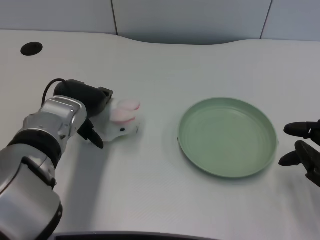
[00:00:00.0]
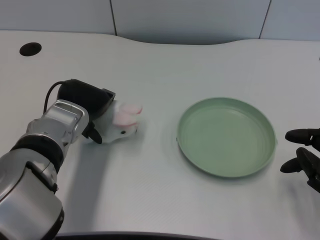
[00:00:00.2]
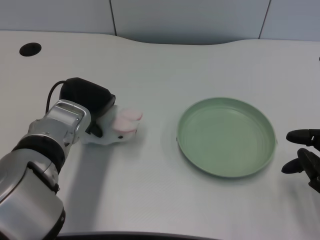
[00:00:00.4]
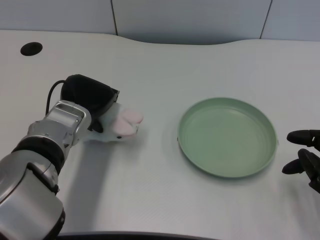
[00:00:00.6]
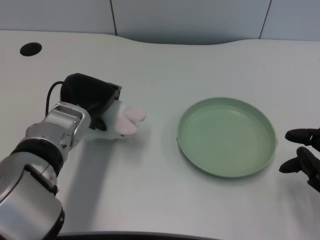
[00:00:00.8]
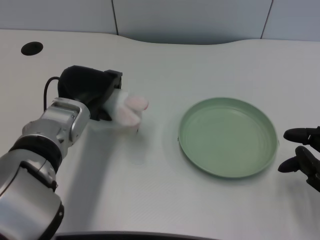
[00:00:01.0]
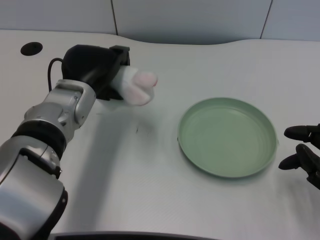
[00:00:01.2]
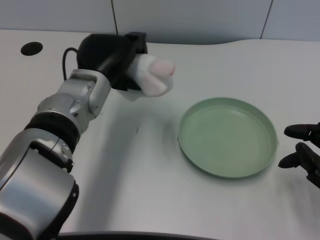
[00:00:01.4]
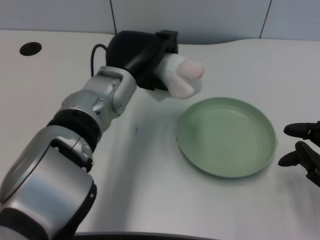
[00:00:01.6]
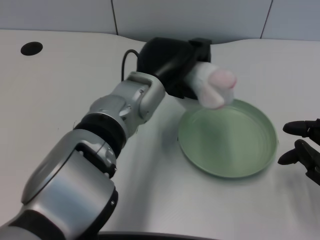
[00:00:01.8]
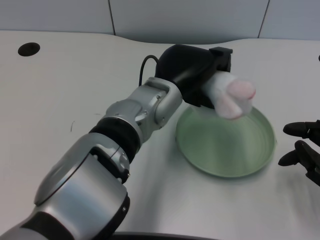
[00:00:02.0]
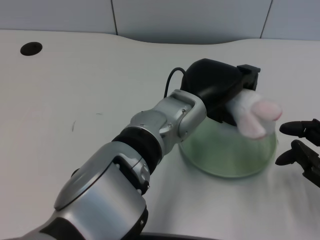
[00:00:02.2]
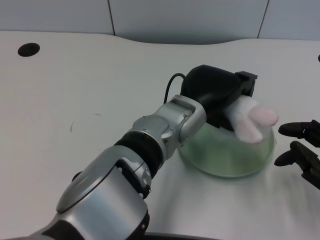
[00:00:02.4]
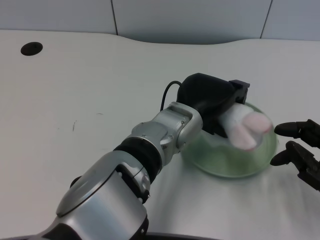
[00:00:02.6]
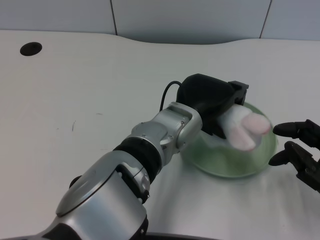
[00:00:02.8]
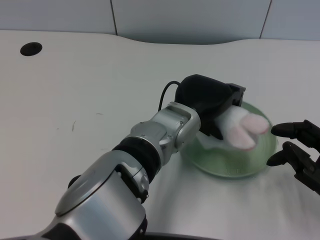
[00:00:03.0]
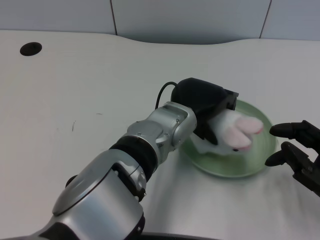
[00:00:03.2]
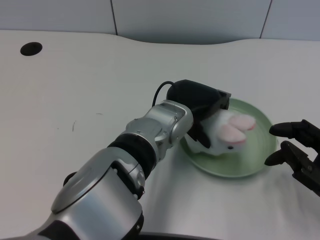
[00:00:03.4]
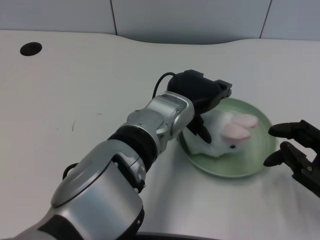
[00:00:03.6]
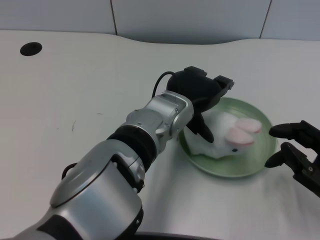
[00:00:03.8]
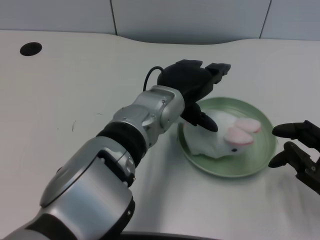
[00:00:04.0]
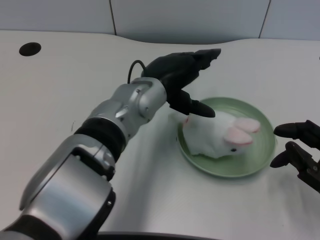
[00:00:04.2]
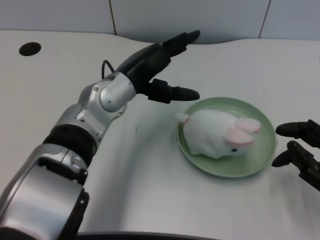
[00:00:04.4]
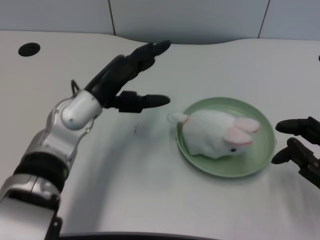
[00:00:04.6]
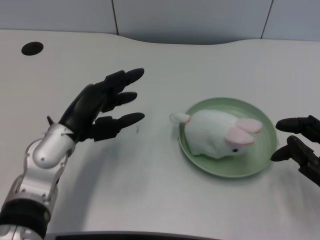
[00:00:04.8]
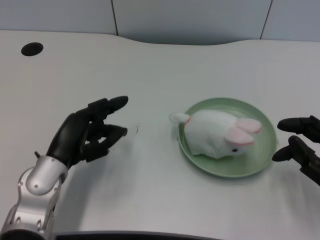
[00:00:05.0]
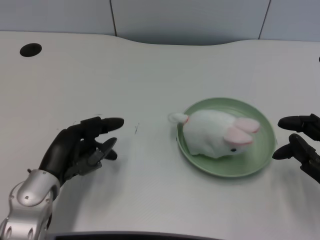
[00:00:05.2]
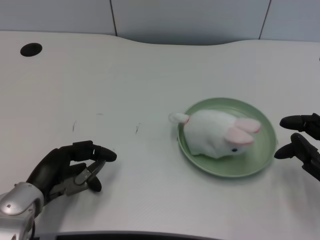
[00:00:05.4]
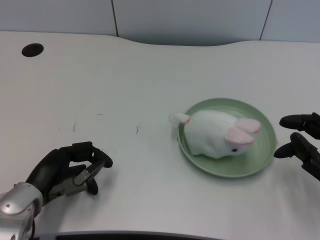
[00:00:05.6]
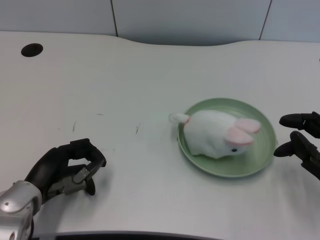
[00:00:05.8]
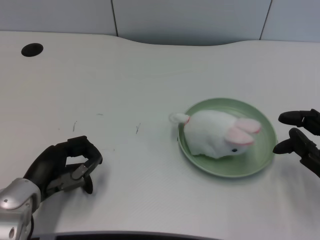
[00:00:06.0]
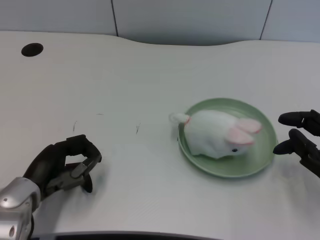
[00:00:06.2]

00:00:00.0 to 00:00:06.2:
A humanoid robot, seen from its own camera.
Task of the whole recording: pick up the rabbit doll from the table and place it on the plate.
Step, 00:00:01.2 to 00:00:03.6: Place the rabbit doll into the plate with the left gripper.
00:00:00.0 to 00:00:01.6: The left hand shifts roughly 10 cm to the right.
00:00:01.6 to 00:00:03.2: The left hand is displaced to the right by some 10 cm.
00:00:03.2 to 00:00:04.6: The left hand moves to the left, approximately 15 cm.
00:00:04.6 to 00:00:06.2: The left hand shifts approximately 15 cm to the left, downward and backward.

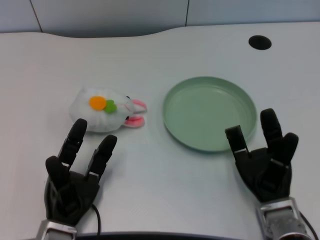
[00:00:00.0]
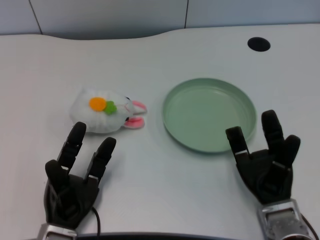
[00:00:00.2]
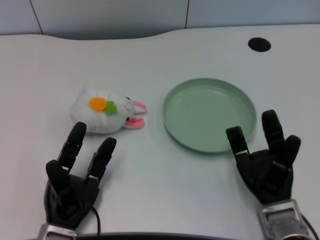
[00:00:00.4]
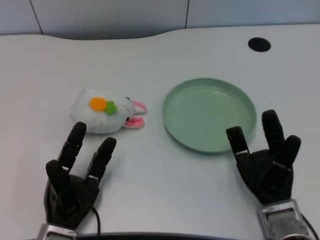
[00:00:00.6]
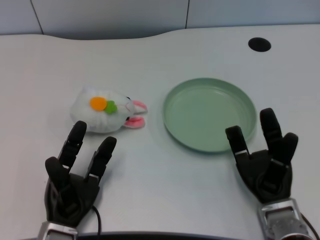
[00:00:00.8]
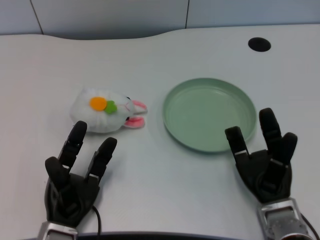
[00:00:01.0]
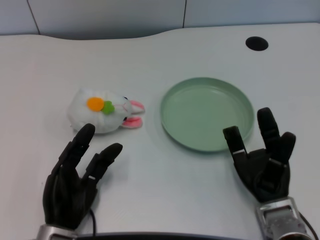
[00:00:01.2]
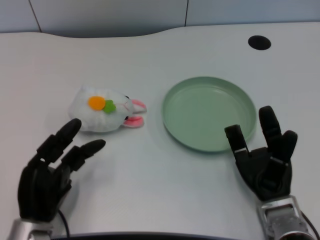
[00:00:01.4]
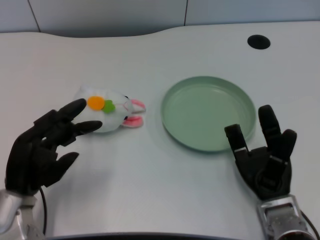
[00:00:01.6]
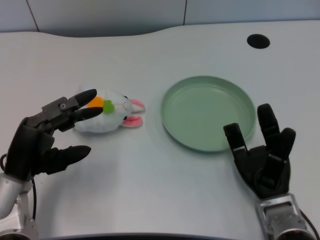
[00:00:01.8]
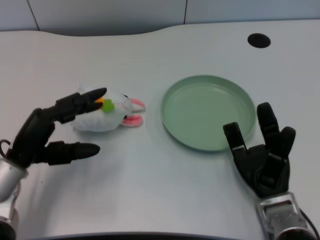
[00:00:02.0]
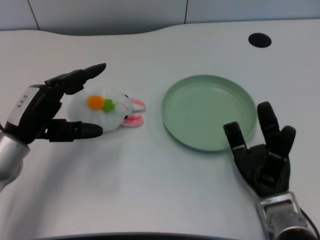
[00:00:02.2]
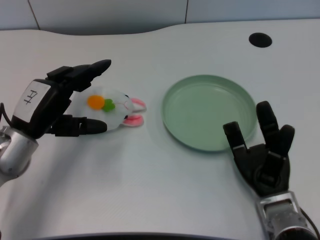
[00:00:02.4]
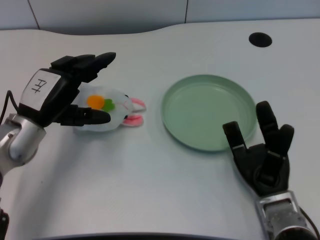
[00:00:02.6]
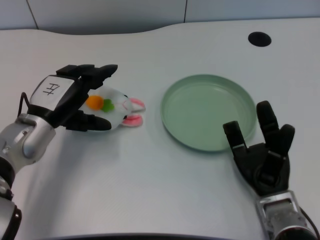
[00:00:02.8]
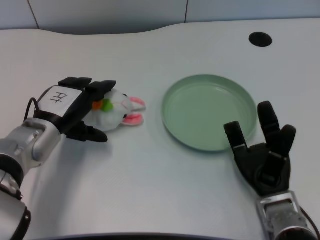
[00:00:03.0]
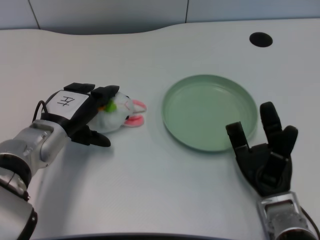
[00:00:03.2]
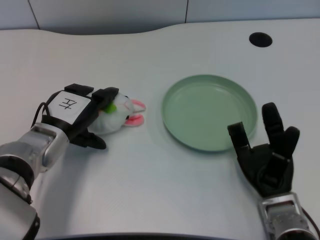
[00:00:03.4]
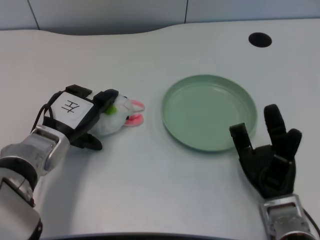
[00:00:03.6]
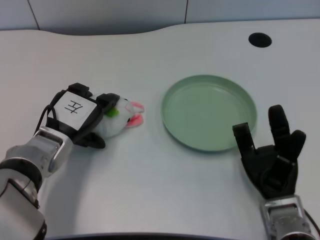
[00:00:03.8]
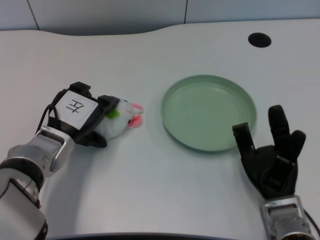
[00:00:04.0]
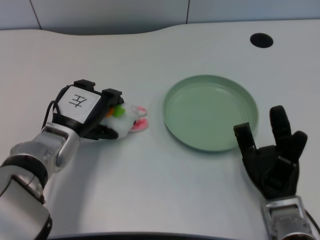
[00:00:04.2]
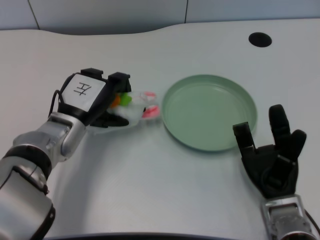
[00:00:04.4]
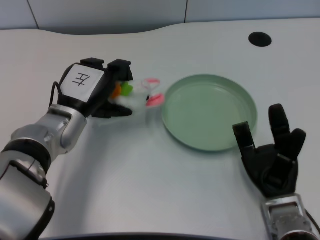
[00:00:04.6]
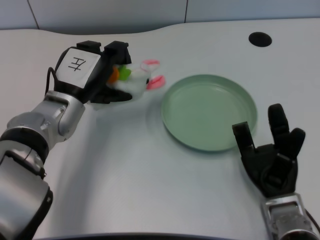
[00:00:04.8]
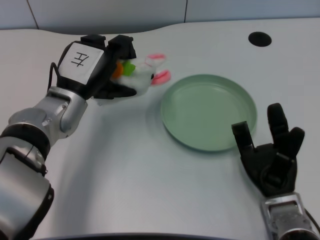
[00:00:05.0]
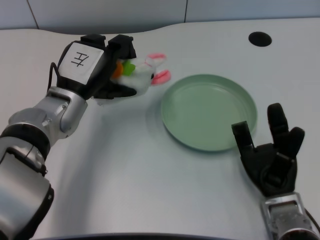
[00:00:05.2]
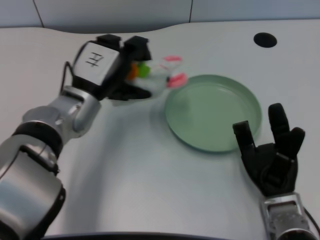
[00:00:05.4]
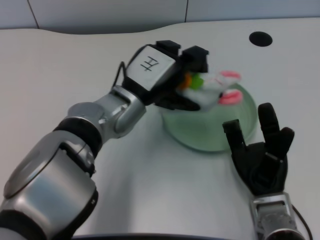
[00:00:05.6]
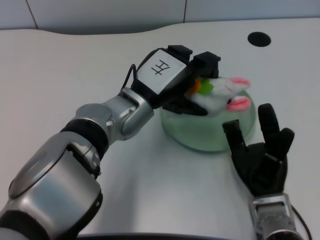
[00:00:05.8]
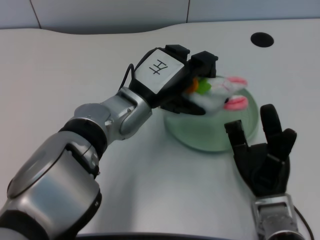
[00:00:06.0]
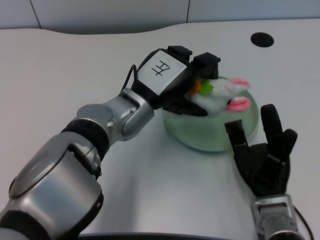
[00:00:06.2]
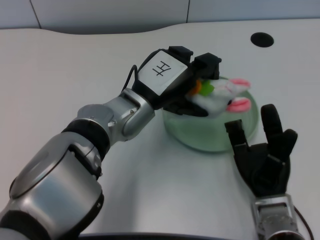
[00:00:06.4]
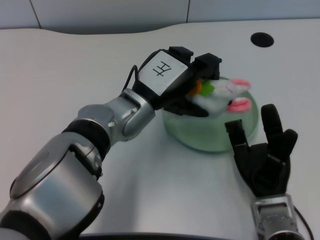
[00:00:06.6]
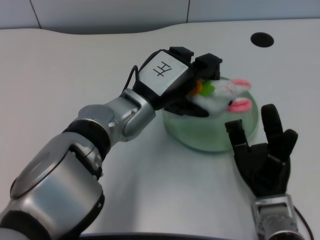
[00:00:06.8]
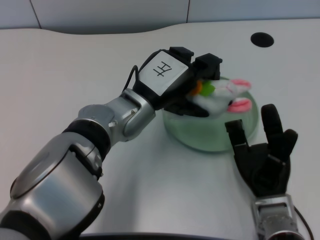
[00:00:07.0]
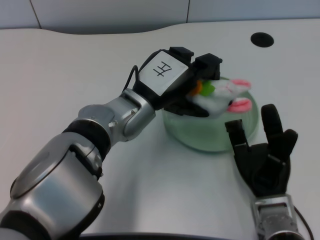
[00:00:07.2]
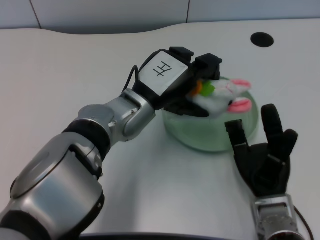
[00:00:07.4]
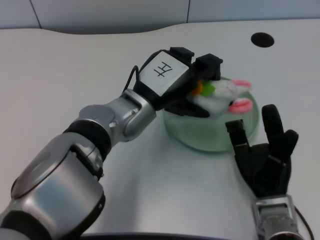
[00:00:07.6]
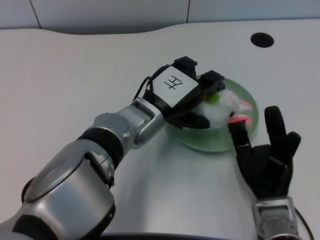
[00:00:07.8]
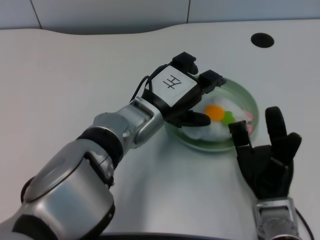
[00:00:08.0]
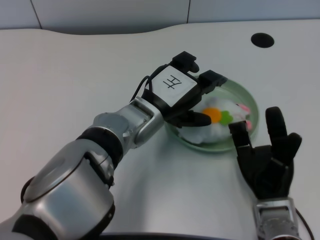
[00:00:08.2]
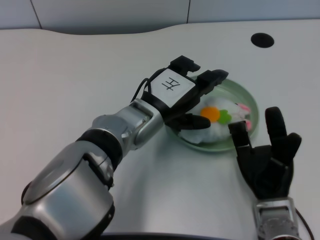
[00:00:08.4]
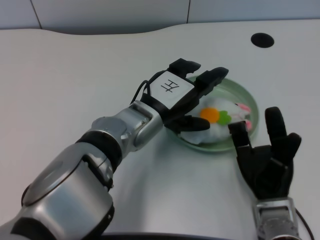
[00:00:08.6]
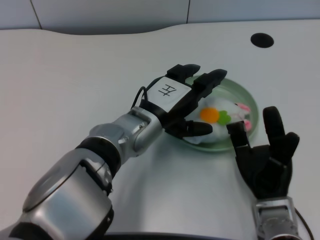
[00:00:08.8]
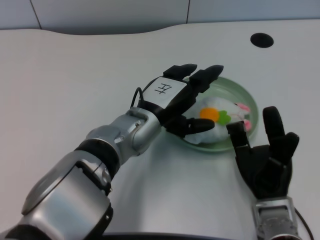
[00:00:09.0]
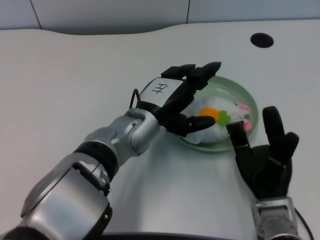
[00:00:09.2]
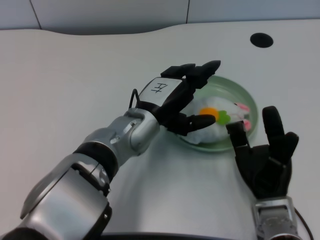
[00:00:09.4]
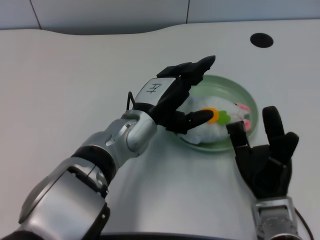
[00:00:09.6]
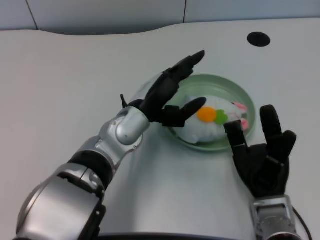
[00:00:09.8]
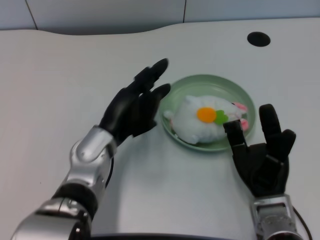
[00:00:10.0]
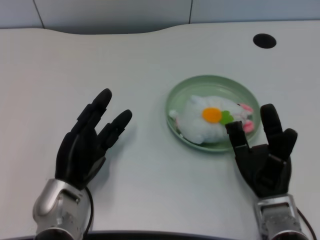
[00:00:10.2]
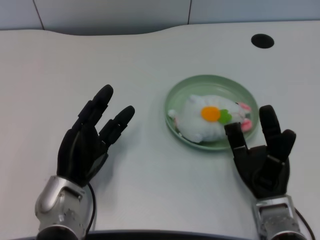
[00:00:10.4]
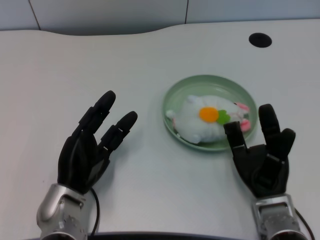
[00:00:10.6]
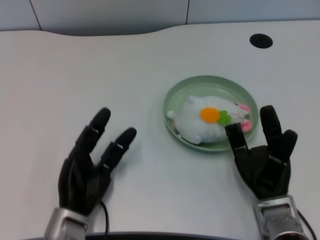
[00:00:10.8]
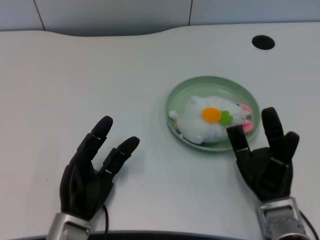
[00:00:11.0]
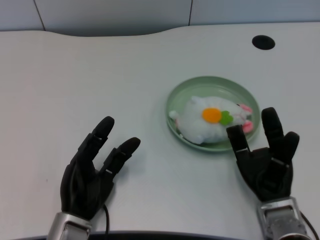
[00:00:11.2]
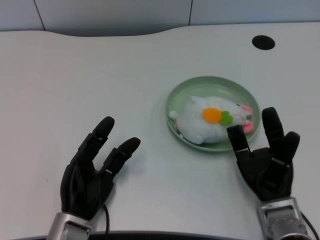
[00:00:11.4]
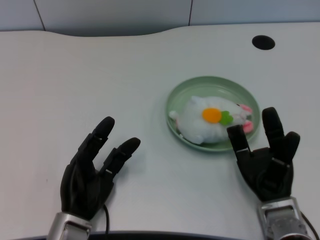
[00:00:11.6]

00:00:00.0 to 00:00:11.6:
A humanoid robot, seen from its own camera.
Task of the whole recording: pick up the rabbit doll from the table and place it on the plate.
Step, 00:00:01.4 to 00:00:04.2: Grasp the rabbit doll with the left gripper.
Step, 00:00:04.4 to 00:00:08.0: Place the rabbit doll into the plate with the left gripper.
00:00:01.4 to 00:00:02.8: The left hand heads forward and upward, covering some 15 cm.
00:00:04.4 to 00:00:05.8: The left hand travels to the right by about 10 cm.
00:00:05.8 to 00:00:07.2: The two hands keep their place.
00:00:08.8 to 00:00:10.2: The left hand shifts about 15 cm to the left, downward and backward.
00:00:10.2 to 00:00:11.6: The left hand ends up roughly 5 cm from where it was.
